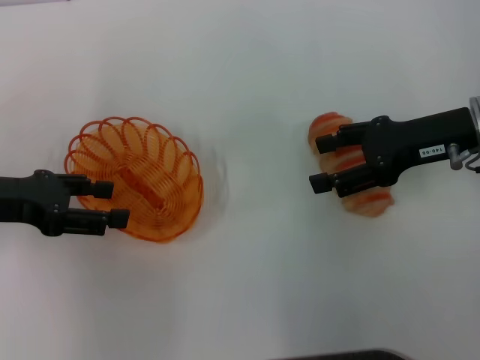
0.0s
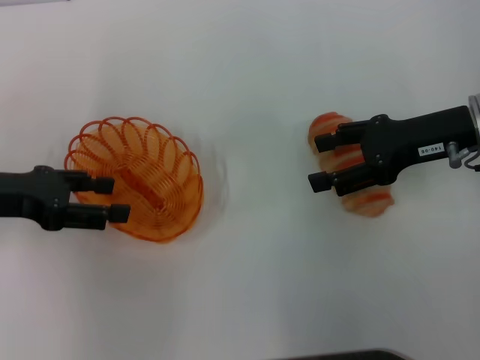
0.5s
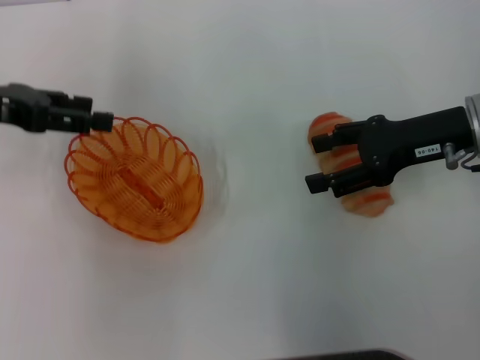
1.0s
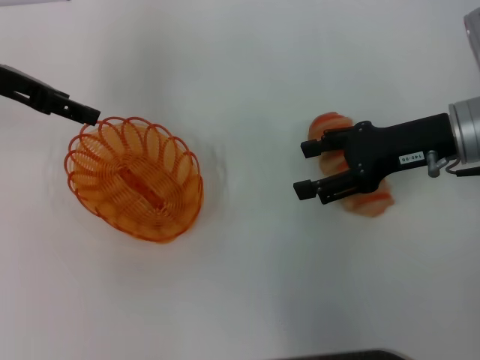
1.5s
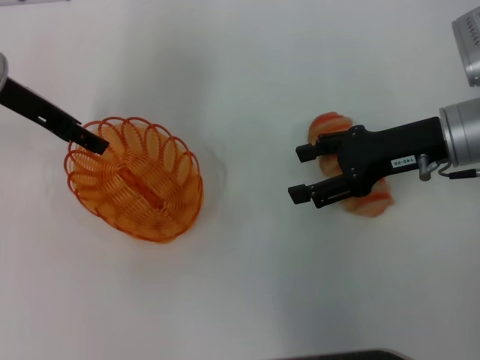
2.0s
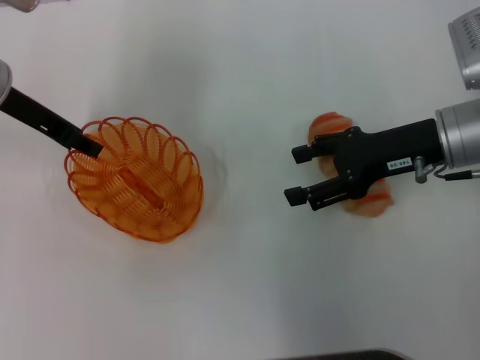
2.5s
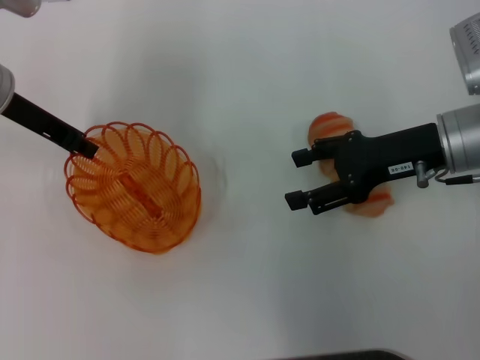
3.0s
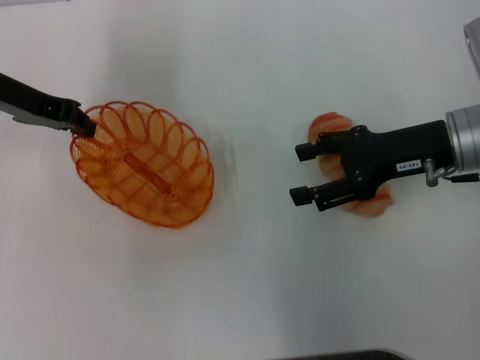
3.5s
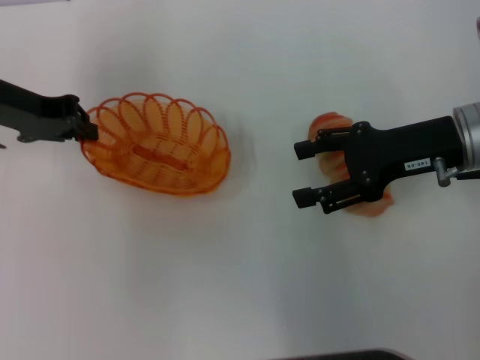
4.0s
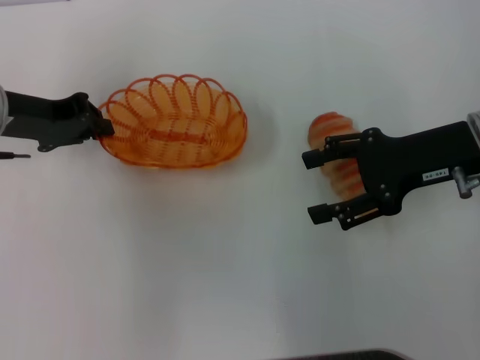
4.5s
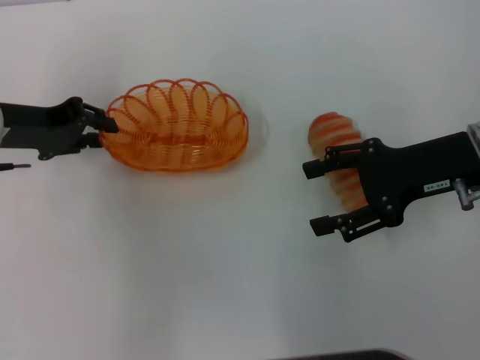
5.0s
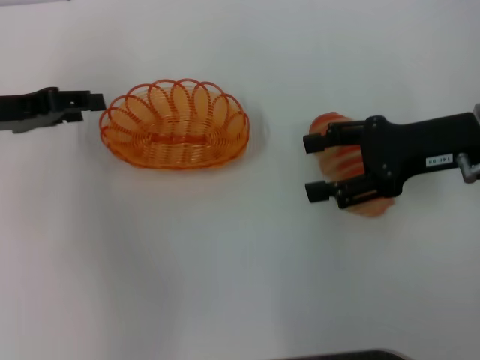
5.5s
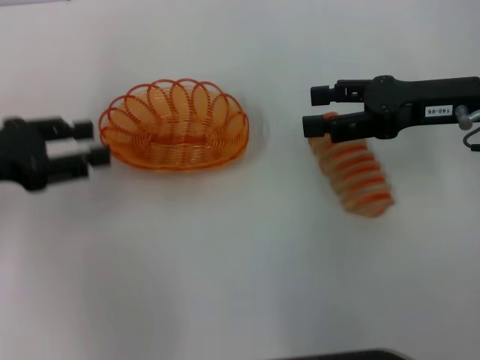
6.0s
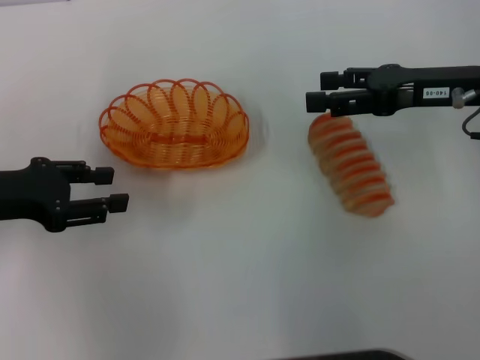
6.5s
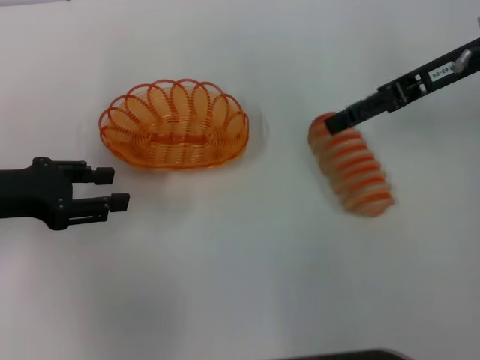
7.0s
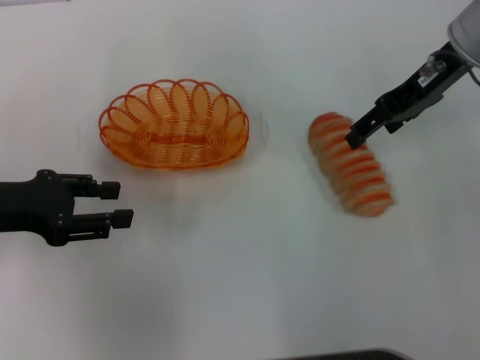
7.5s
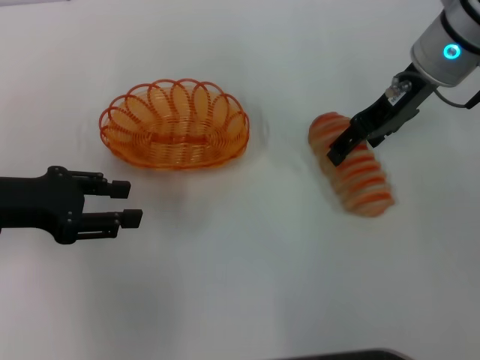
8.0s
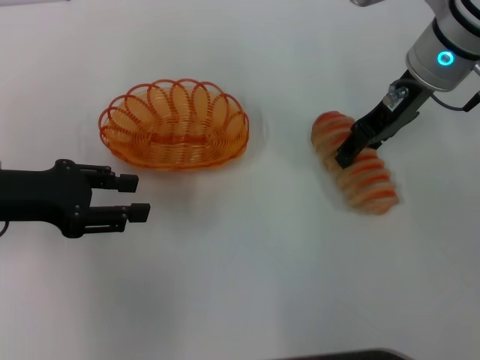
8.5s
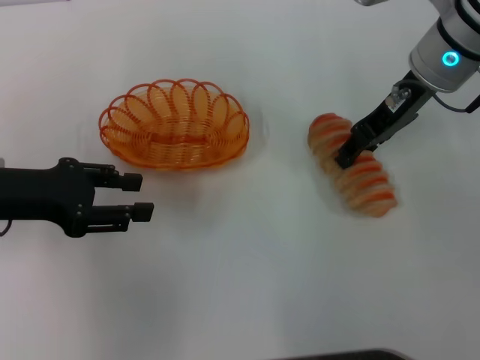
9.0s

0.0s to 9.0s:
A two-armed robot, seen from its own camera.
Step, 0.0s to 3.0s: Pick up the basket with the left gripper.
Step, 3.5s to 5.5s: Place the basket in the center of view with the left gripper.
0.0s to 2.0s: The left gripper travels forward, to the right and upward by roughly 15 cm.
2.0s to 4.5s: The left gripper shifts by roughly 5 cm, and closes.
4.5s to 7.0s: The right gripper travels forward and upward by roughly 10 cm. Meanwhile the left gripper moves backward, some 10 cm, and opens up.
7.0s to 9.0s: The right gripper travels to the left by roughly 5 cm, and closes up.

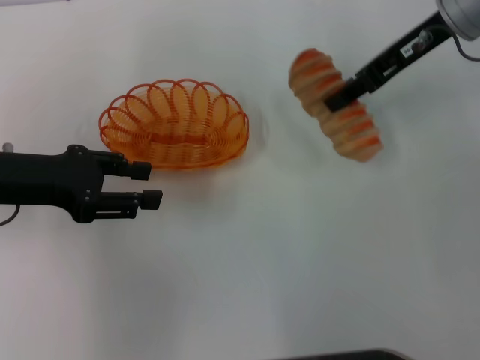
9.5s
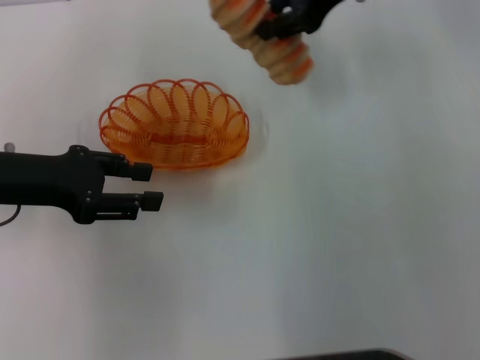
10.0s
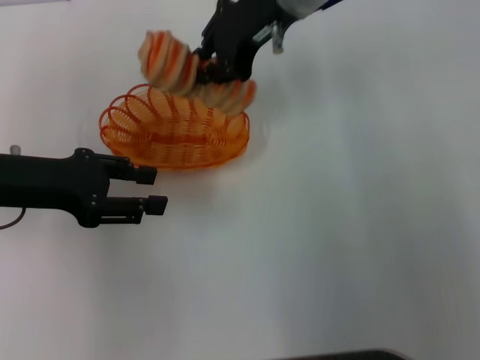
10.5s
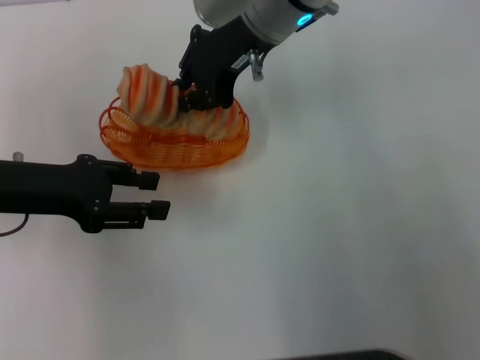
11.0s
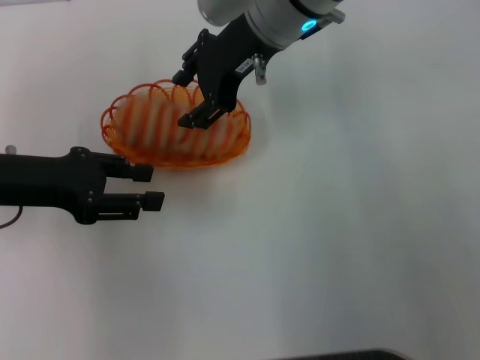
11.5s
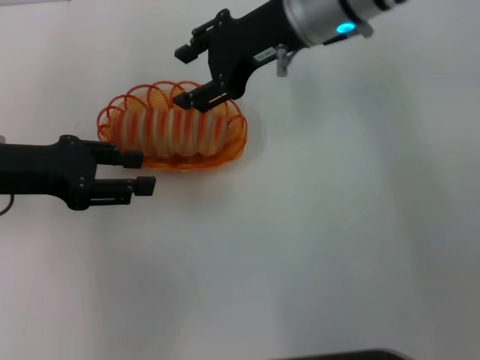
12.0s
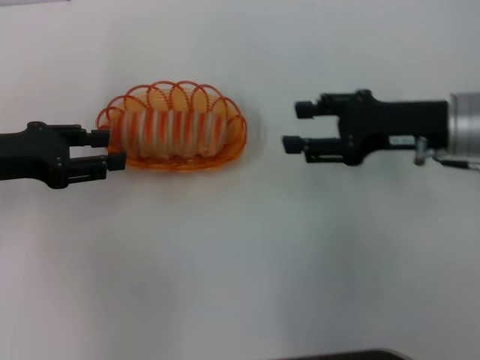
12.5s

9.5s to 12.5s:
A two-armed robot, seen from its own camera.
Step, 9.5s to 12.0s: Place the long bread into the basket with the right gripper.
9.5s to 11.0s: The right gripper heads to the left, covering some 15 cm, and closes up.
11.0s to 12.5s: The right gripper is displaced to the right, backward and downward by roughly 25 cm, and opens its fingers.

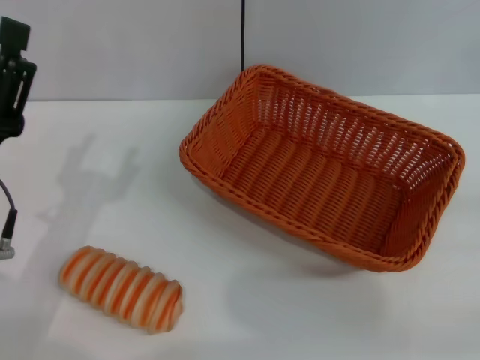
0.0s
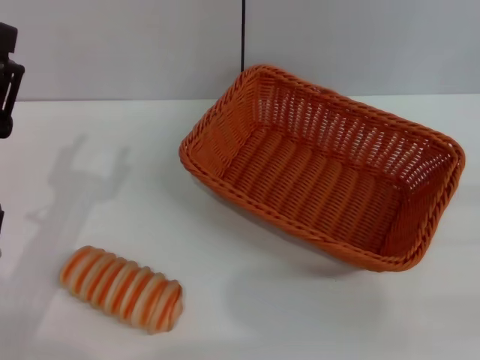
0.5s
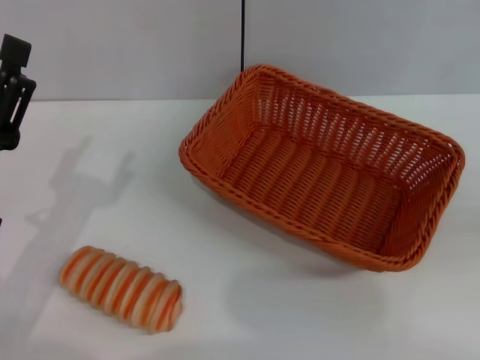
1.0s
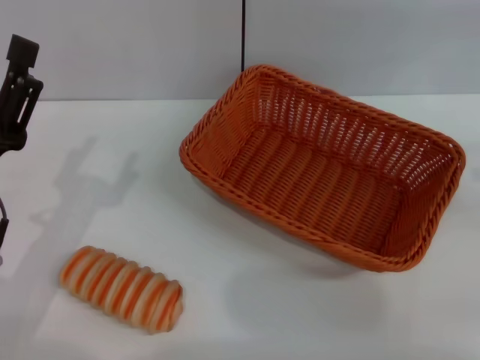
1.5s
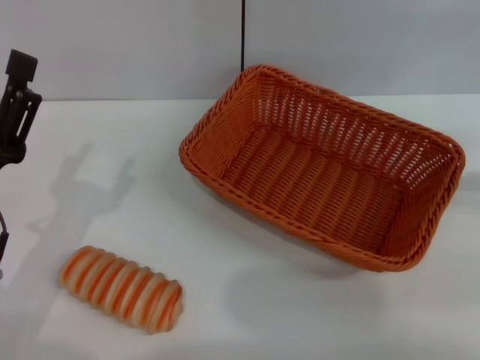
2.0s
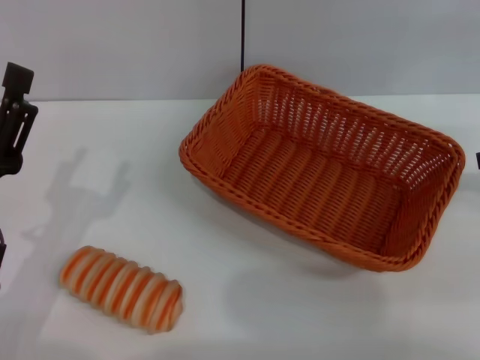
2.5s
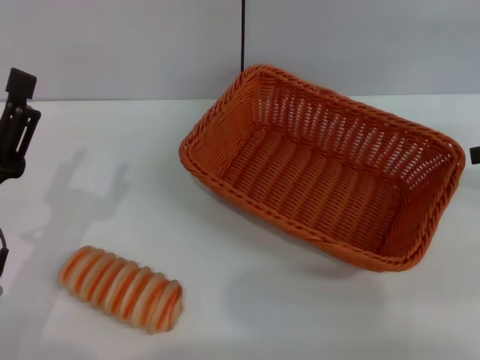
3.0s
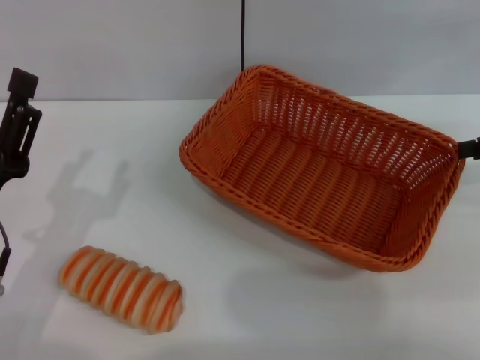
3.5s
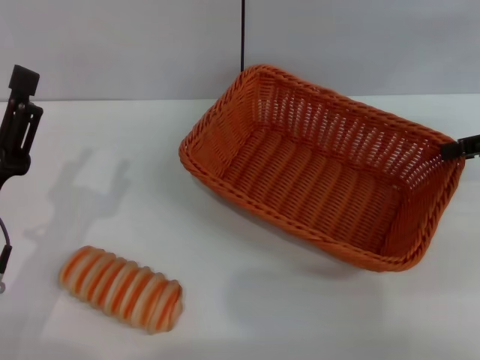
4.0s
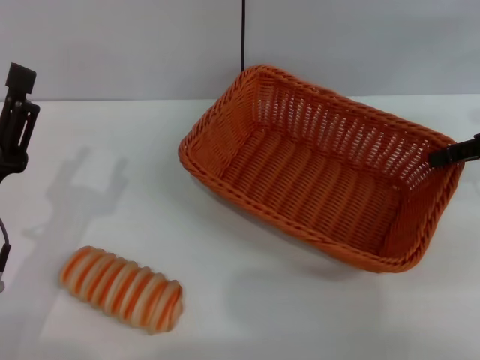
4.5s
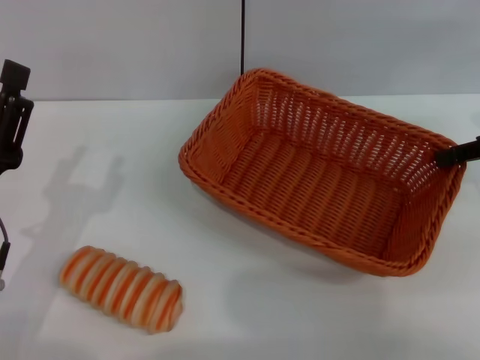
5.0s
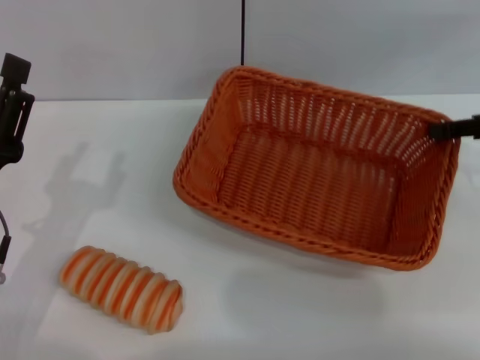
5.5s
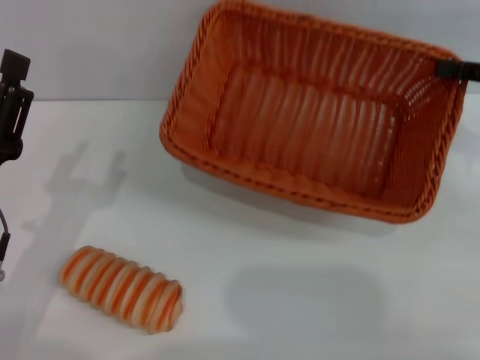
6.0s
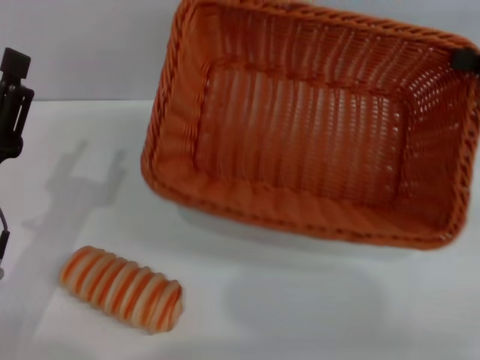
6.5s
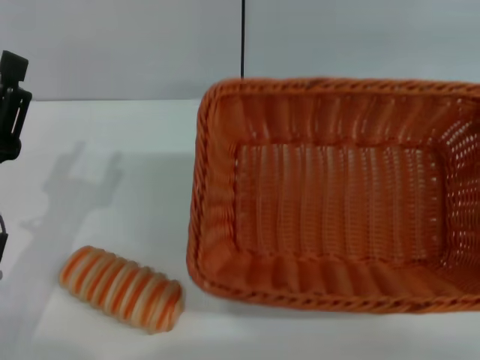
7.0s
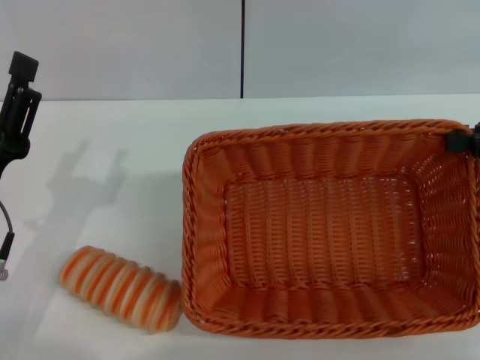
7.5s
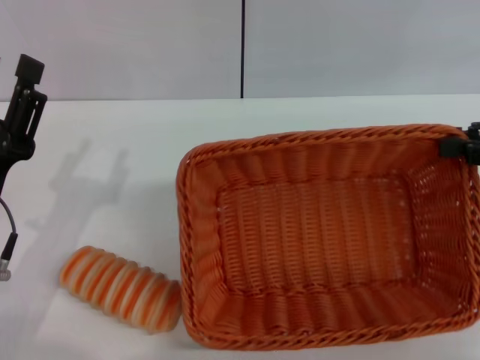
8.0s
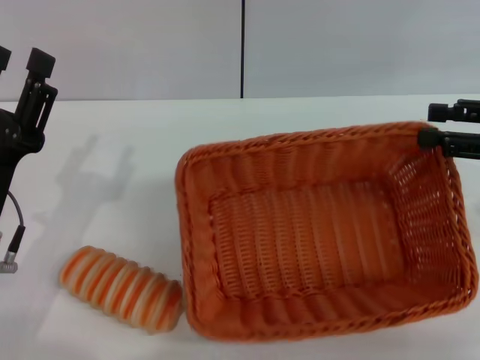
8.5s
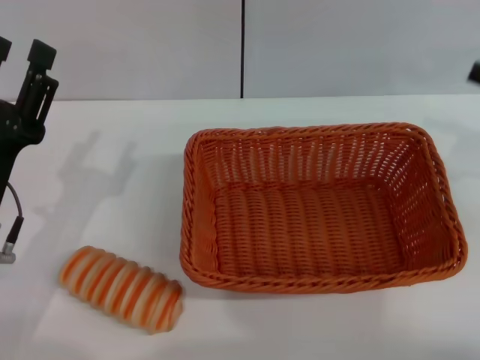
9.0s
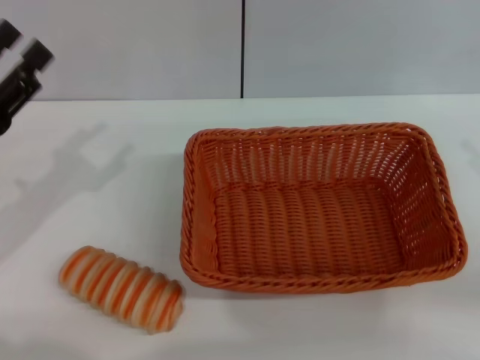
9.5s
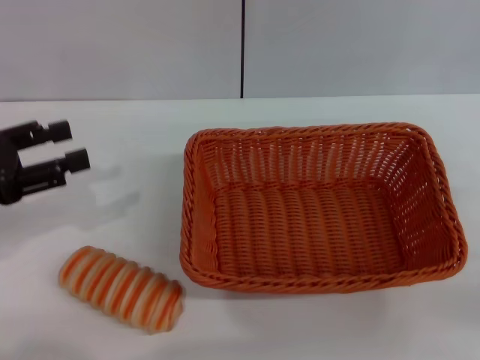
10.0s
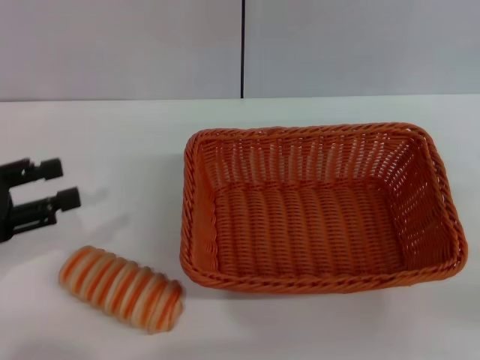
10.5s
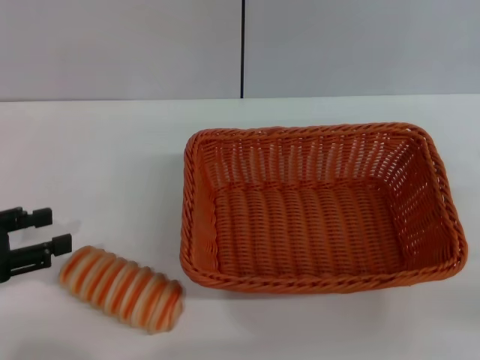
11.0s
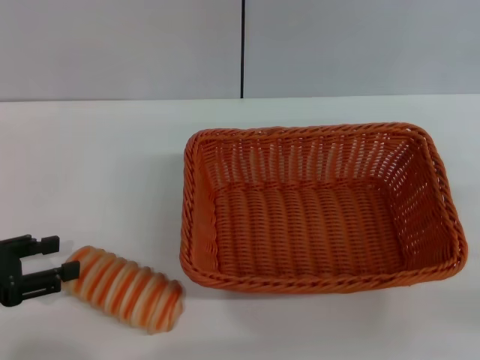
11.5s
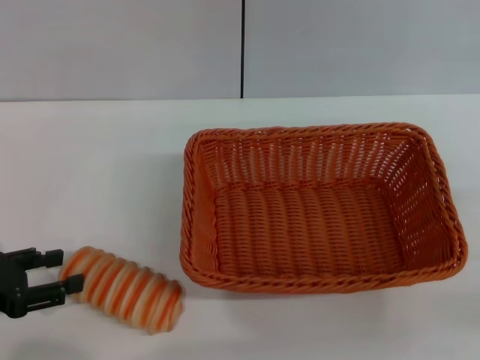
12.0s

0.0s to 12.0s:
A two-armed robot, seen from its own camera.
Step, 0.0s to 5.5s: Pick up the light basket with the right gripper.
Step, 6.0s to 8.5s: Place the light basket in the center of view with the right gripper.
0.0s to 2.0s: The right gripper is displaced forward and upward by about 20 cm.
4.0s to 6.0s: The right gripper closes.
8.0s to 10.0s: The right gripper heads backward and downward, covering approximately 10 cm, and opens its fingers; the left gripper is displaced to the left, upward and forward by approximately 15 cm.
10.0s to 12.0s: The left gripper moves downward and backward, about 10 cm.

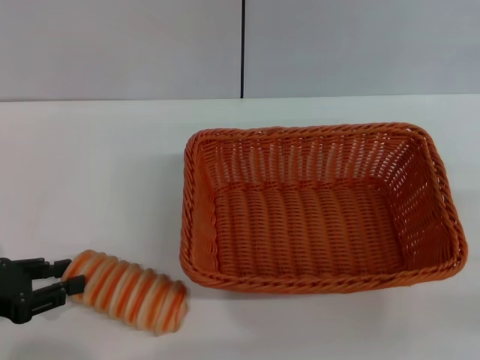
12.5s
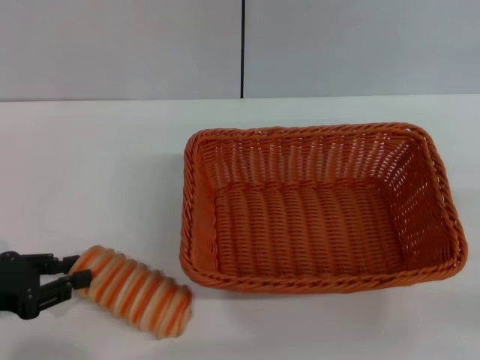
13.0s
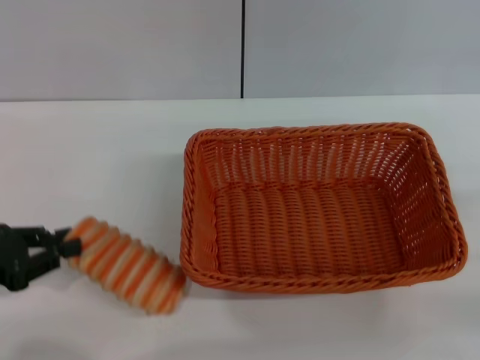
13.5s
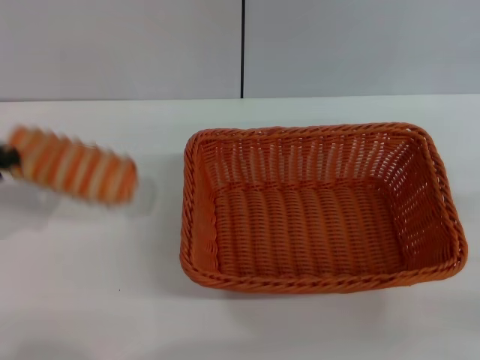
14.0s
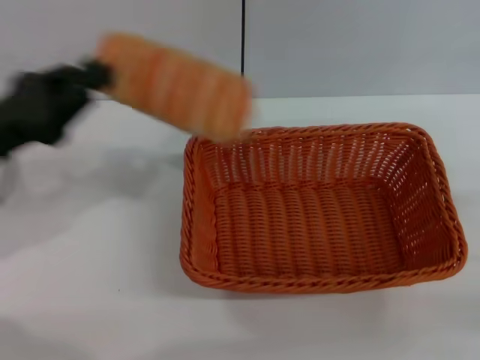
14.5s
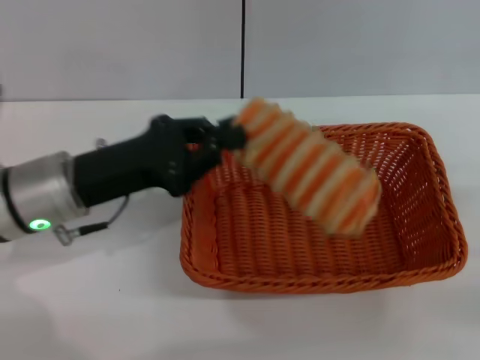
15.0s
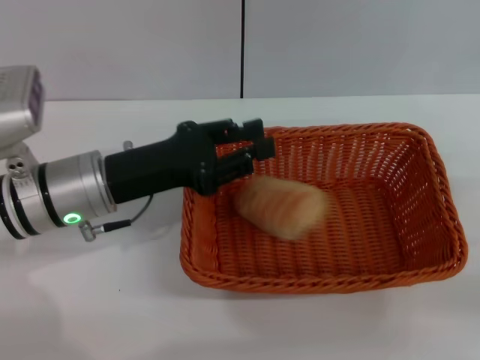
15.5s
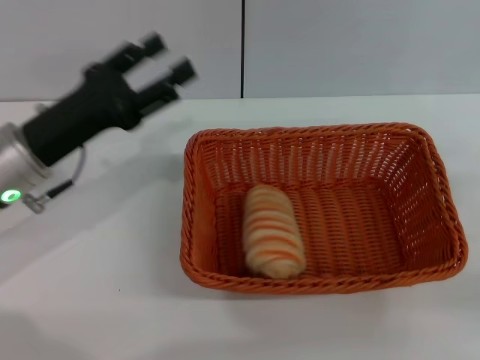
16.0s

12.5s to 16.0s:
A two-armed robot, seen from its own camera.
Step, 14.0s to 15.5s: Place the long bread into the light basket with the left gripper.
12.5s to 14.5s: The left gripper travels forward, upward and to the right by about 10 cm, and closes.
14.5s to 16.0s: The left gripper goes roughly 5 cm to the right, and opens its fingers.
